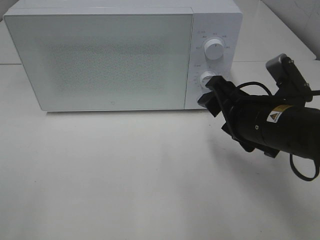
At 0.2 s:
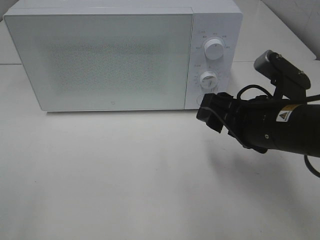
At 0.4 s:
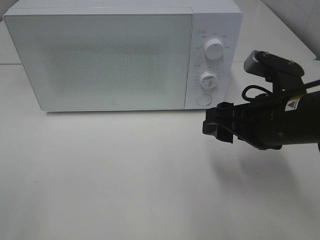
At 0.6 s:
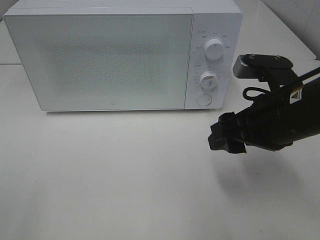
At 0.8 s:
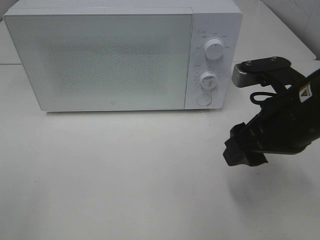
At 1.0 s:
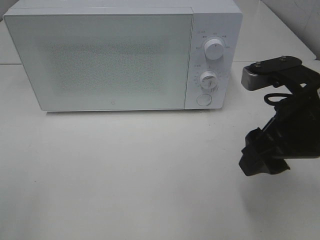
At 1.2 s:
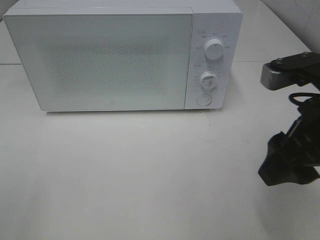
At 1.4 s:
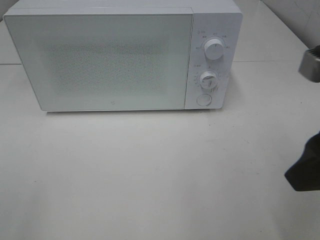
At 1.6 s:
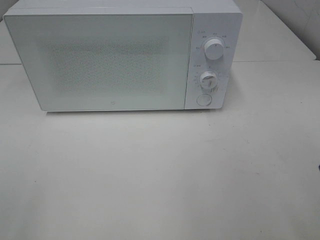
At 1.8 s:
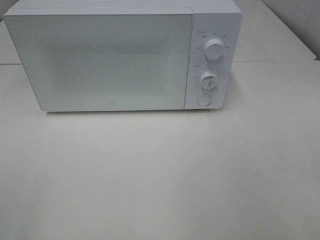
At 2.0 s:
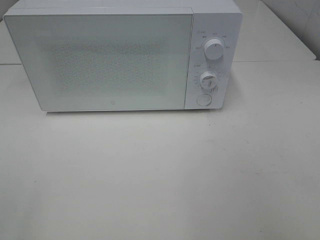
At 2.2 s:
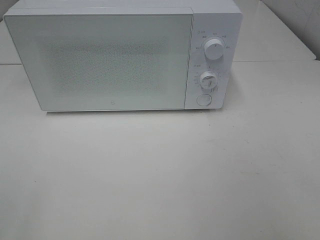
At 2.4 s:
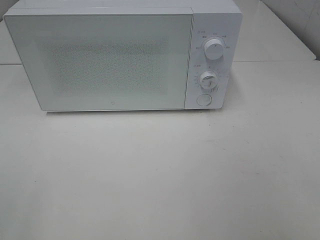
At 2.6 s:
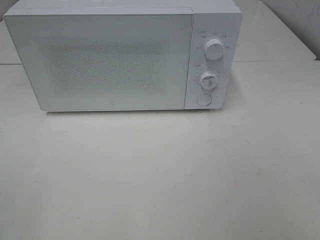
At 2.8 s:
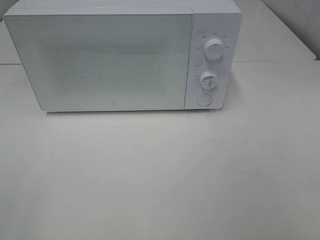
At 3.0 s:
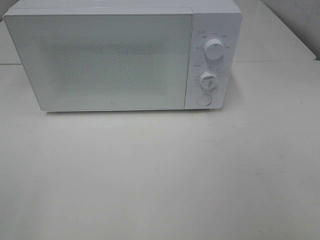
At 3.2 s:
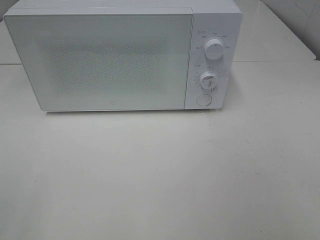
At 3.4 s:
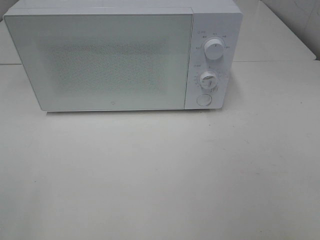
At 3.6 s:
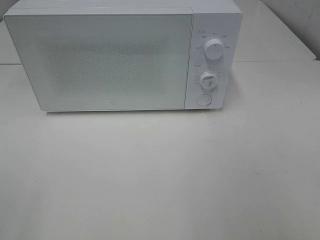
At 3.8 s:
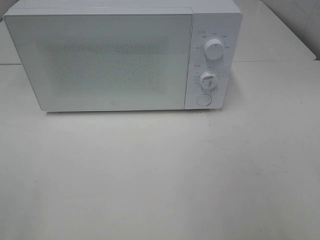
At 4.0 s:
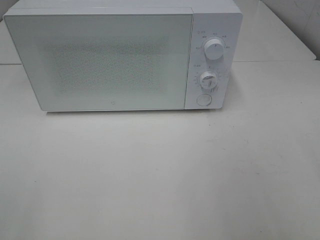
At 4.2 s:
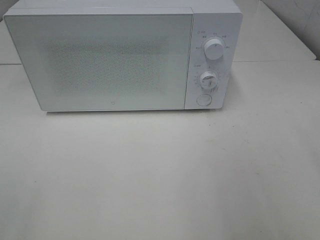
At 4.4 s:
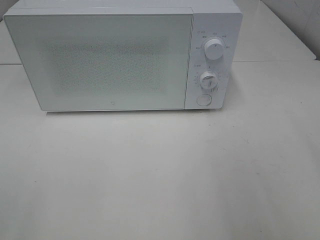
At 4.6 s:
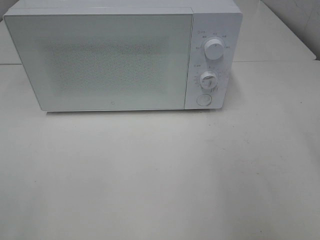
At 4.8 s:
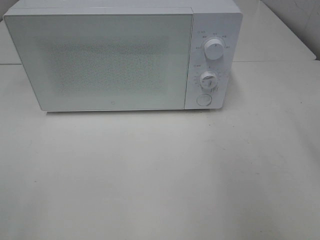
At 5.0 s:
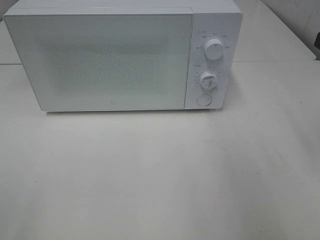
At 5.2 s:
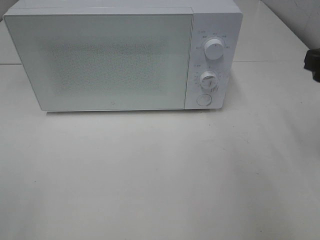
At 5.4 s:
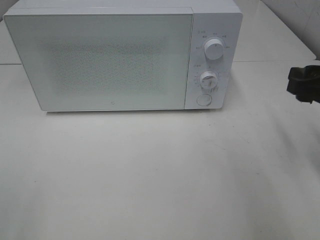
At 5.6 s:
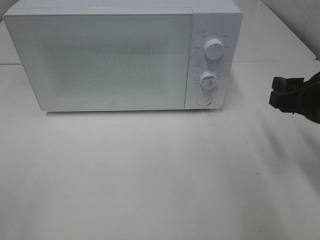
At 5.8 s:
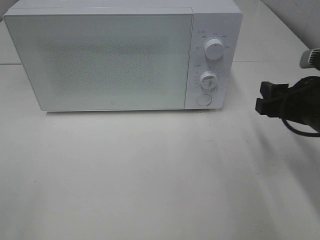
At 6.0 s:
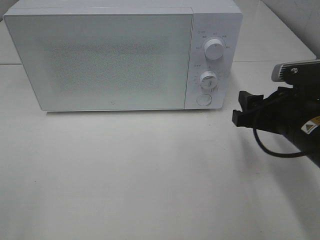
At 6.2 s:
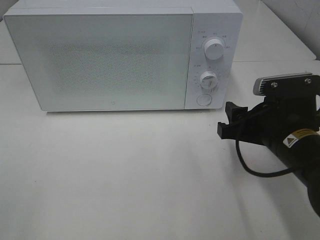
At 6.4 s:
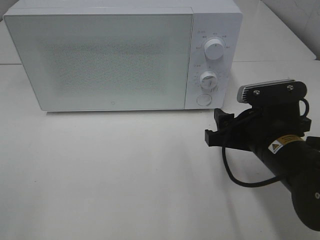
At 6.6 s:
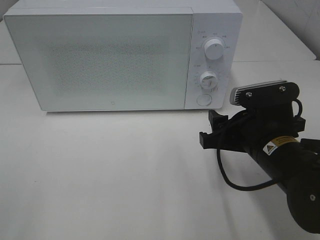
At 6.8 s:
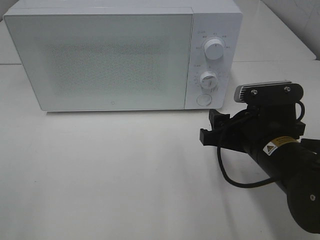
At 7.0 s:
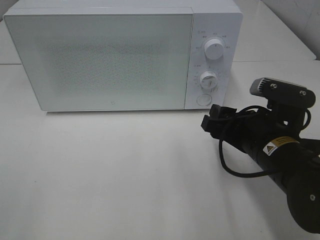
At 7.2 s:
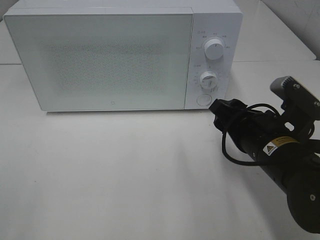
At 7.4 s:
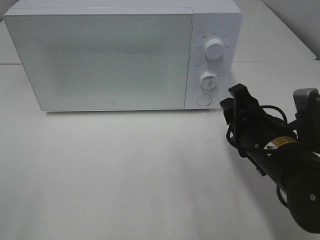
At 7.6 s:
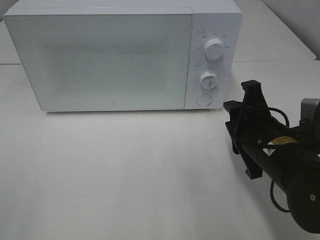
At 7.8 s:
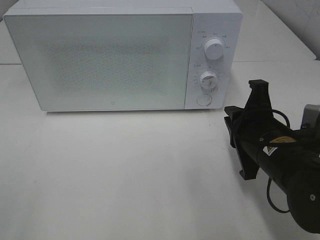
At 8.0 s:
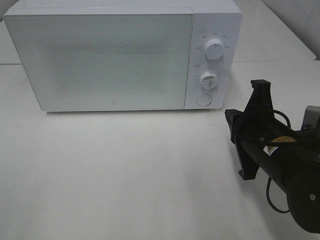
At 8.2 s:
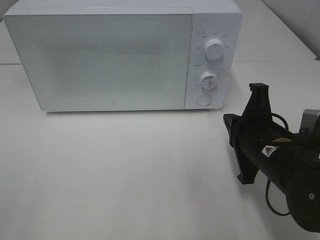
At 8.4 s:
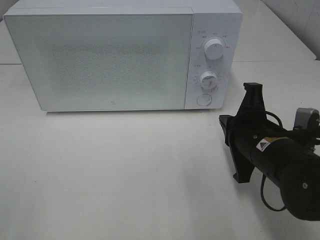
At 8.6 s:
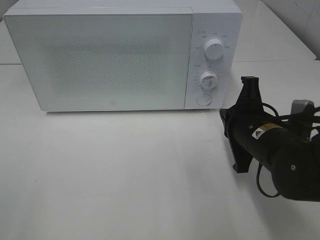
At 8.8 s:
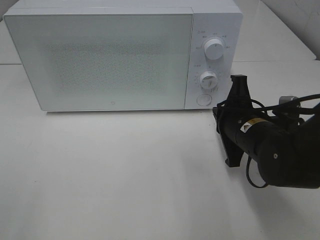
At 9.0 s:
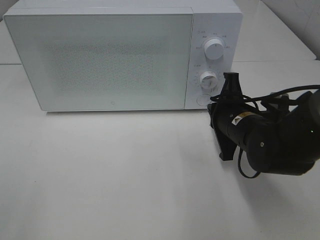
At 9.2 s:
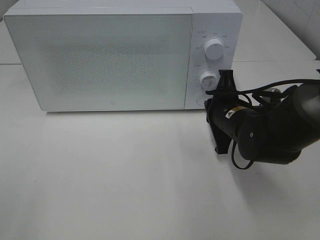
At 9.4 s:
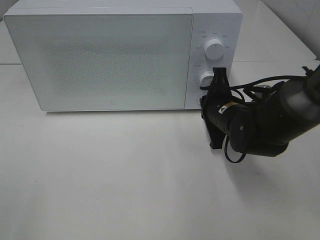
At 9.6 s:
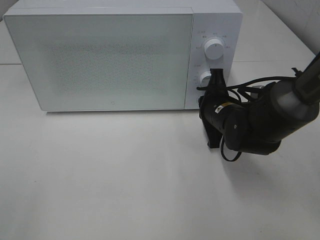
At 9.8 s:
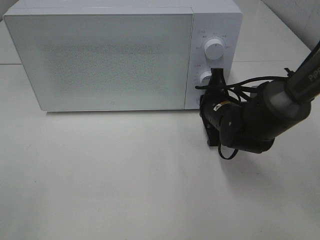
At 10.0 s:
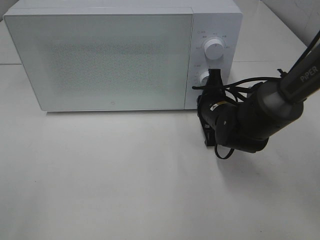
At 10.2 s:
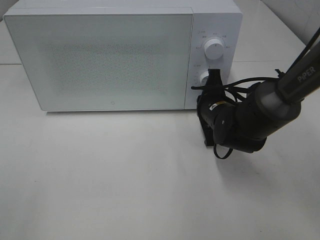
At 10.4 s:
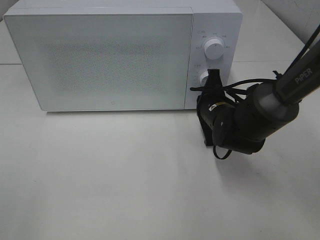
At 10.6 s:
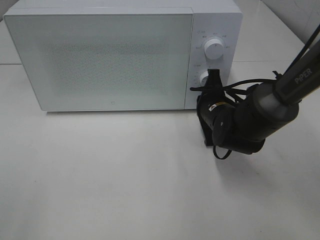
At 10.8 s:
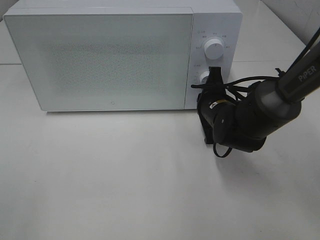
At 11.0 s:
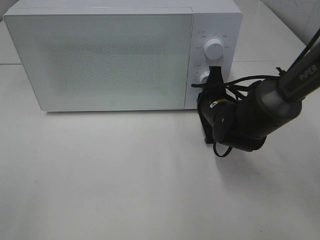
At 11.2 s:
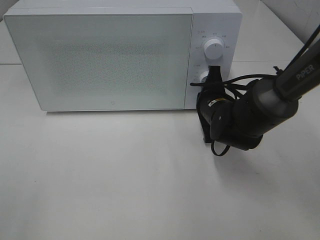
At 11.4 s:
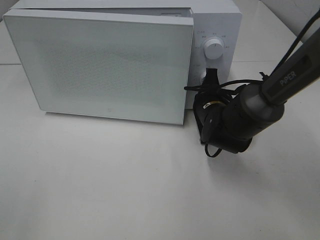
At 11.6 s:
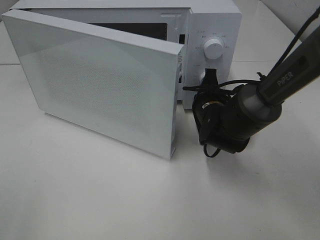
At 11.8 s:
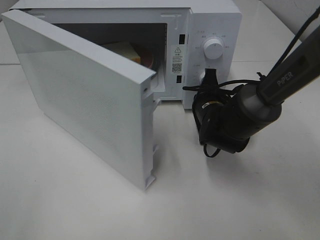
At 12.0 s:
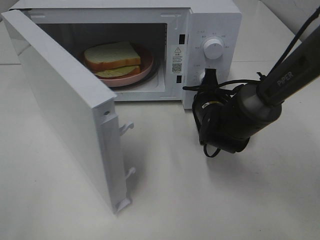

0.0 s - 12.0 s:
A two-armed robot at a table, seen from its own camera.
Task of the whole recording: Heat Sandwich.
0.0 s - 1.6 s: The right gripper is displaced upward, backward and to the right by some 20 cm.
4.4 s - 6.0 s: The right gripper moves downward, forward and to the left, some 20 cm.
6.0 s - 7.6 s: The right gripper ends up about 5 cm from where it was.
7.6 s - 9.0 s: The right gripper is displaced forward by approximately 5 cm, and closes.
9.0 s - 10.4 s: The right gripper heads forward, covering roughly 5 cm.

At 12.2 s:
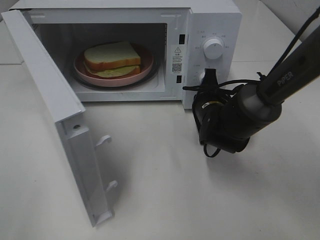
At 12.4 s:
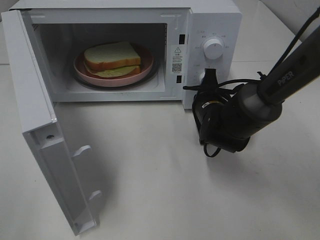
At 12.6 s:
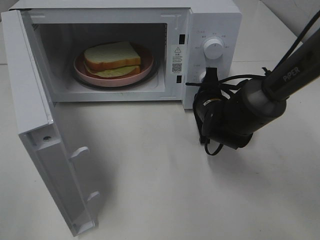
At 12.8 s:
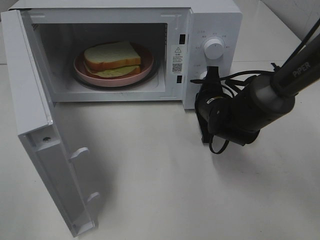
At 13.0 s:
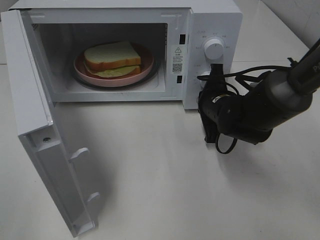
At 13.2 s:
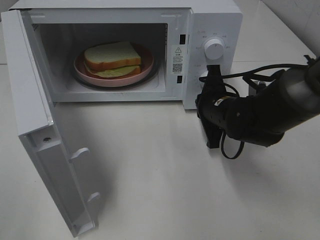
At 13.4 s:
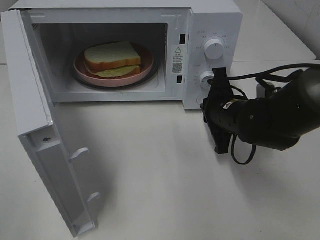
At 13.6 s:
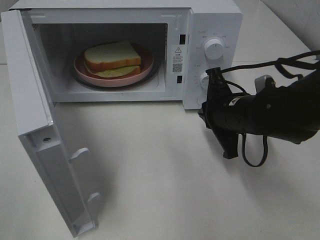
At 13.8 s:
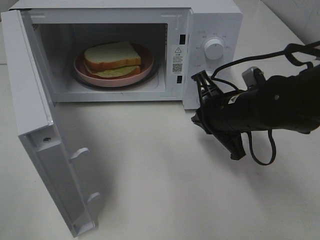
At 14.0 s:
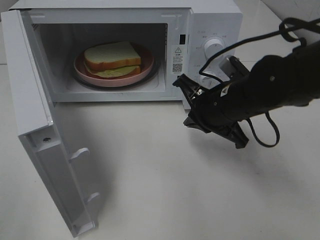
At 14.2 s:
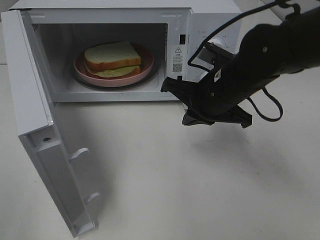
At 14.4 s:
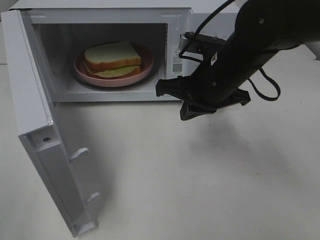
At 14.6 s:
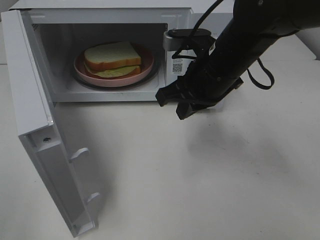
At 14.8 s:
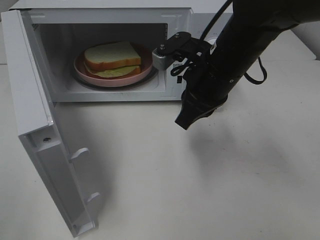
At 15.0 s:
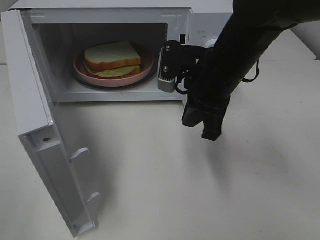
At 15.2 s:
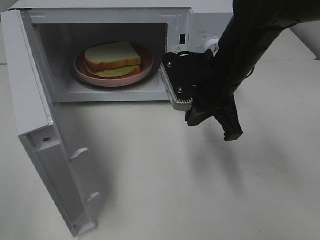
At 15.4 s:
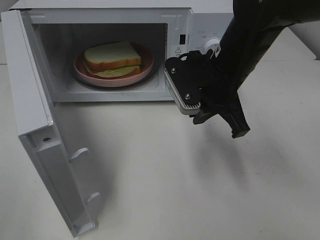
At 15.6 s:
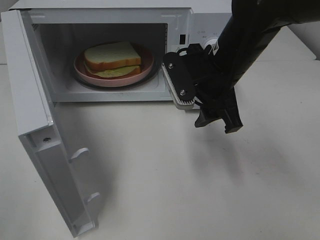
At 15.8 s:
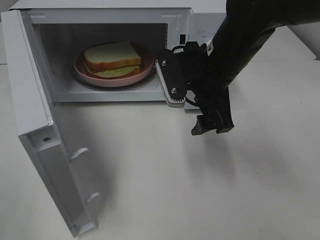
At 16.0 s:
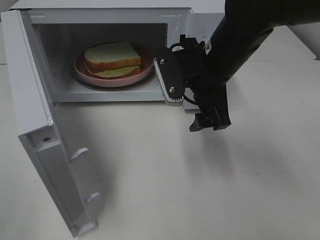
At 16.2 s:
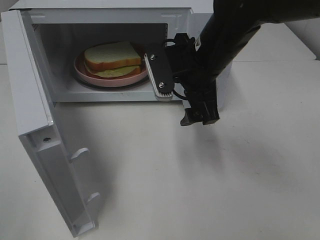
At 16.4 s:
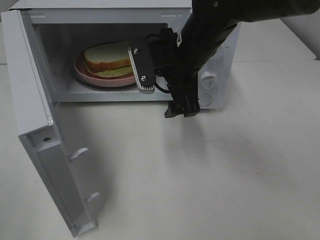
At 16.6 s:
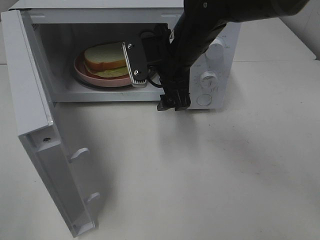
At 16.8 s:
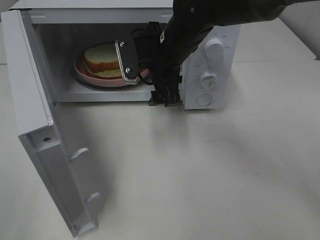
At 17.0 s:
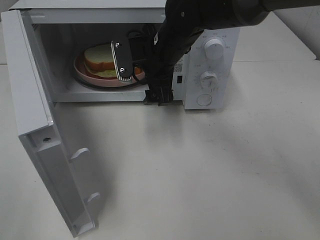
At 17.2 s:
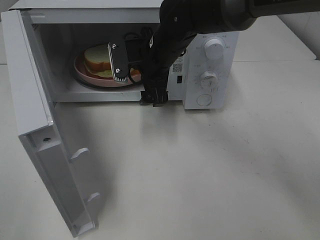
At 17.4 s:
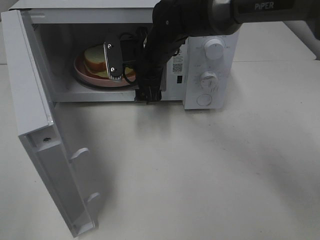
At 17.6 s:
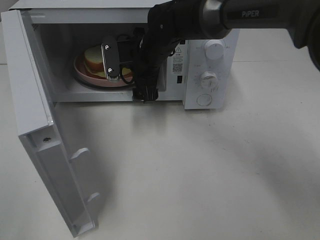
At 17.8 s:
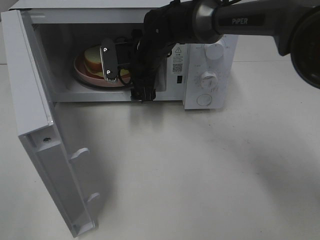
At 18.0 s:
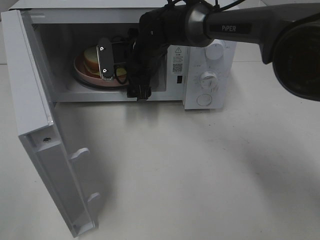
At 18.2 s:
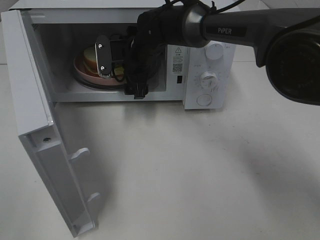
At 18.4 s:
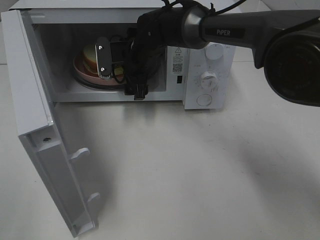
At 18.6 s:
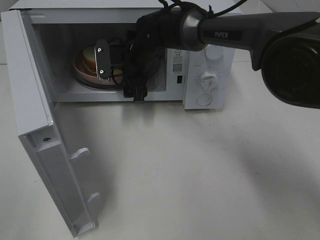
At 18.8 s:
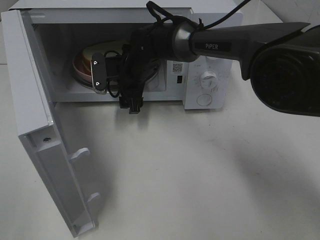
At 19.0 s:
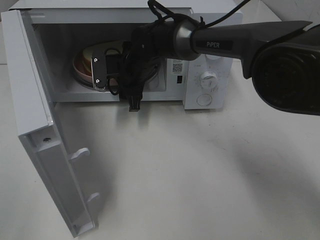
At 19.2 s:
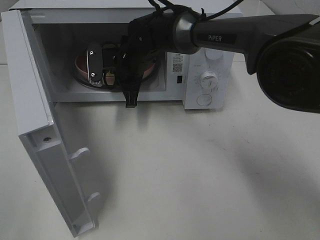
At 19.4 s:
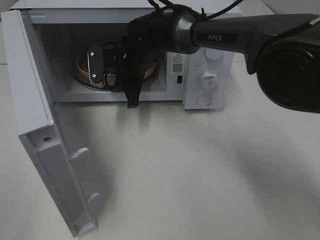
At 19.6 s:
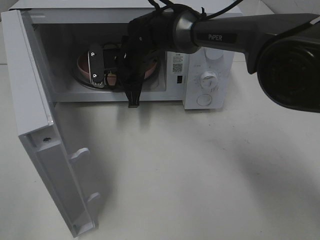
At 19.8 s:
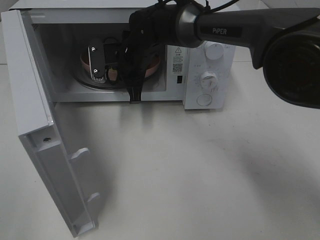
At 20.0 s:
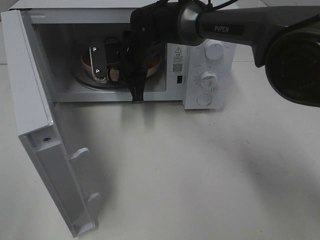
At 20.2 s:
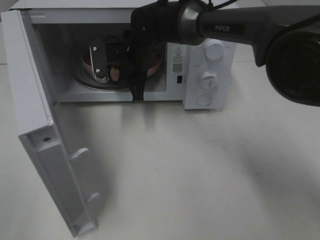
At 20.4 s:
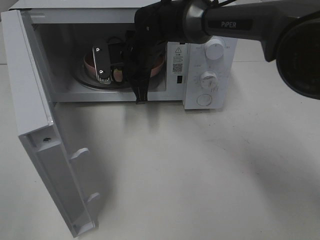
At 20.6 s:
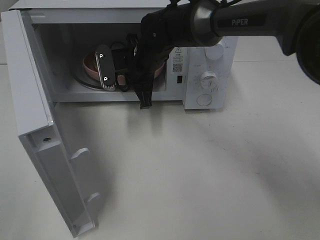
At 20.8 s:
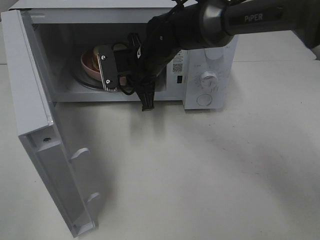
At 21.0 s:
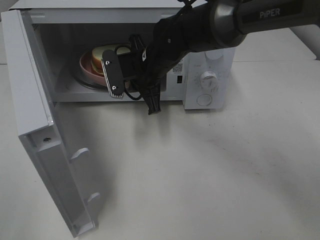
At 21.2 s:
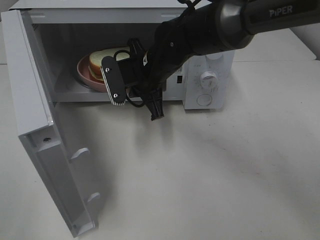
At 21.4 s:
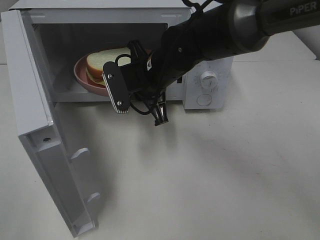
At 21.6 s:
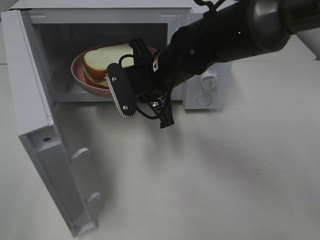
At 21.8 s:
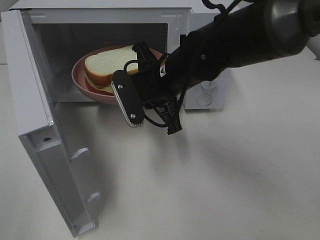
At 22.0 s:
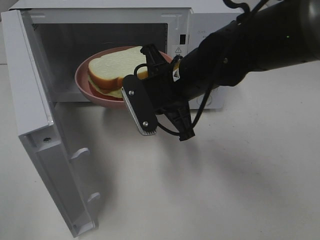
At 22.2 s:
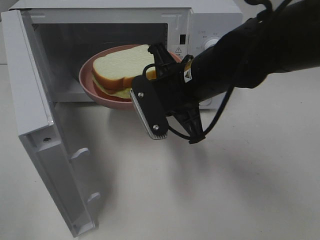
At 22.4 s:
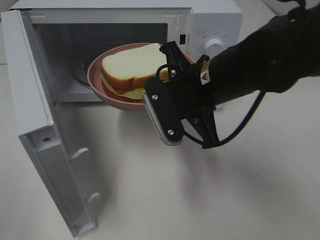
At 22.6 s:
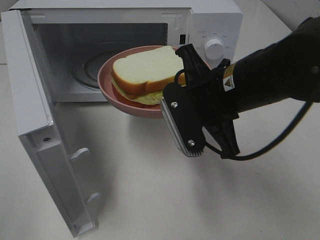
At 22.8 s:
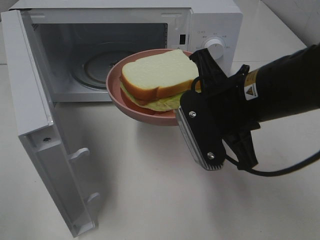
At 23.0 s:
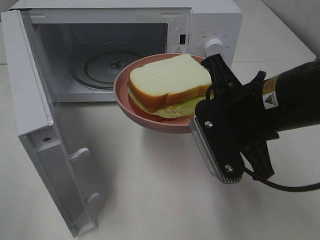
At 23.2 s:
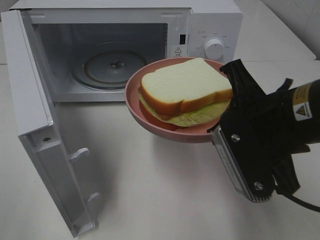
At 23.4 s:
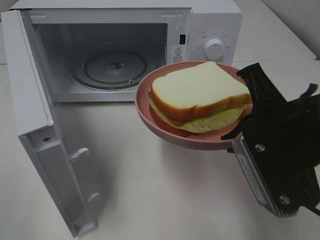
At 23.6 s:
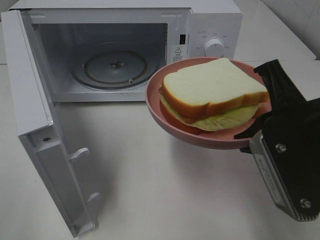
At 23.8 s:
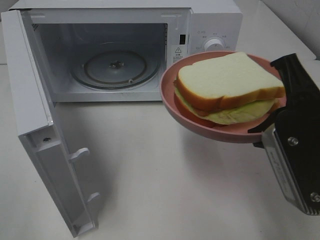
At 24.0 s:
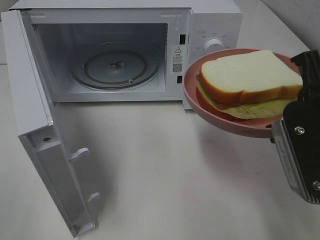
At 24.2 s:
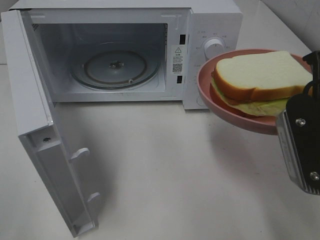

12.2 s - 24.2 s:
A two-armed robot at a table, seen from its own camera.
Task of the whole recording: Heat Sandwich.
Step, 13.2 s - 19.6 s: Right hand: grab the plate with the sandwich.
12.2 s - 13.8 s: The right gripper travels backward and upward by approximately 10 cm.
13.8 s - 15.2 s: The right gripper moves upward, roughly 5 cm.
15.2 s - 16.6 s: The right gripper is displaced to the left and forward by roughly 10 cm, and opens.
16.6 s - 18.2 s: The right gripper heads forward, to the left and downward, covering some 15 cm.
18.2 s - 19.8 s: The right gripper closes up.
19.8 s - 21.2 s: The right gripper travels backward by about 5 cm.
21.2 s - 22.6 s: The right gripper heads backward and to the right, covering roughly 15 cm.
22.6 s - 24.2 s: The right gripper heads to the right and backward, covering some 15 cm.
